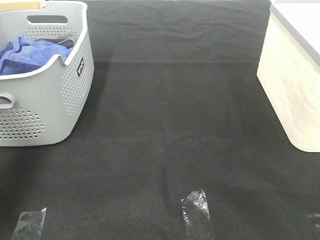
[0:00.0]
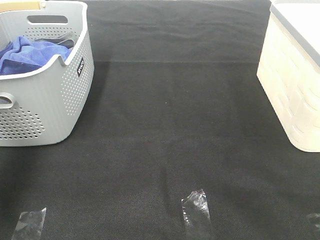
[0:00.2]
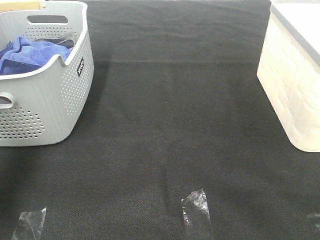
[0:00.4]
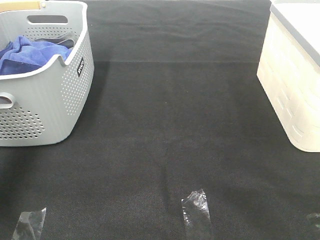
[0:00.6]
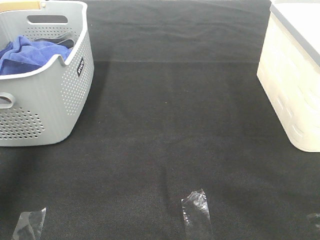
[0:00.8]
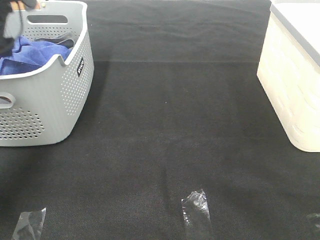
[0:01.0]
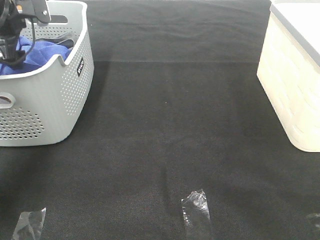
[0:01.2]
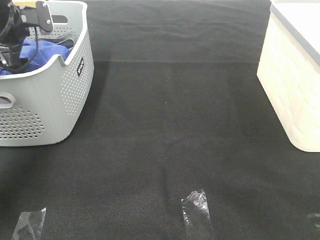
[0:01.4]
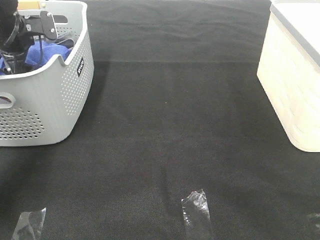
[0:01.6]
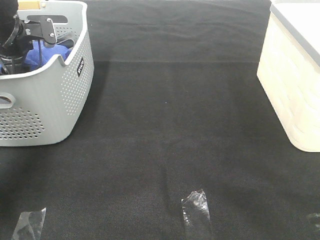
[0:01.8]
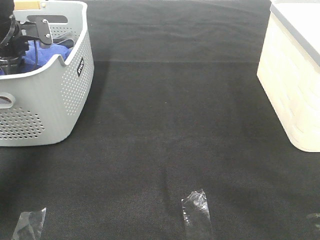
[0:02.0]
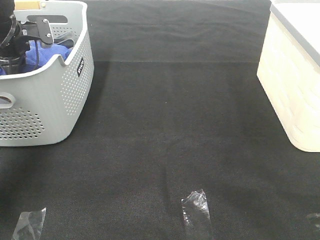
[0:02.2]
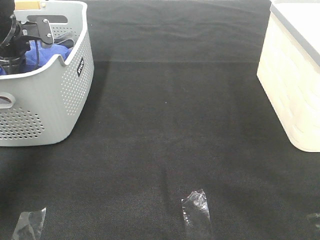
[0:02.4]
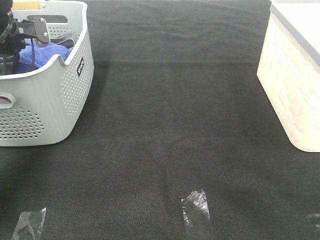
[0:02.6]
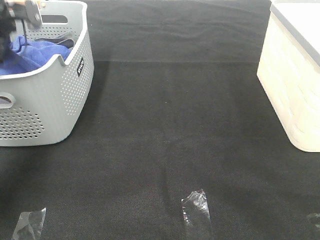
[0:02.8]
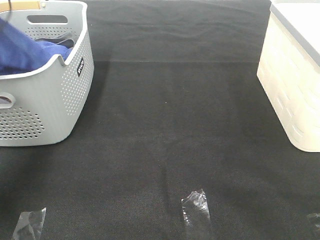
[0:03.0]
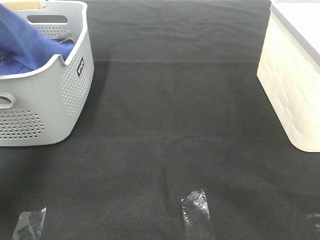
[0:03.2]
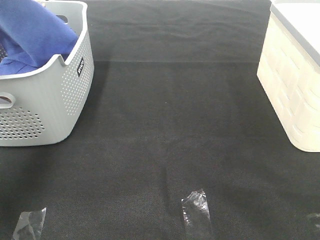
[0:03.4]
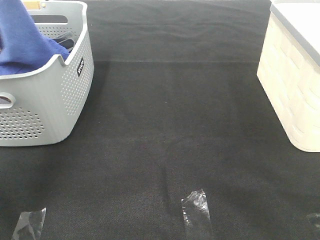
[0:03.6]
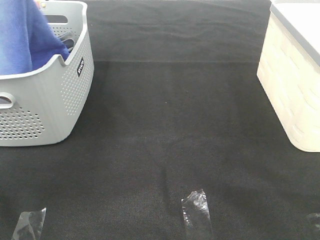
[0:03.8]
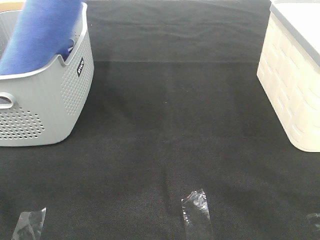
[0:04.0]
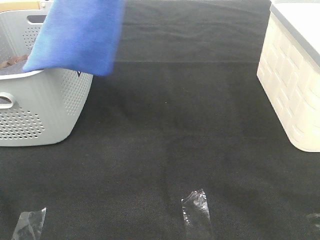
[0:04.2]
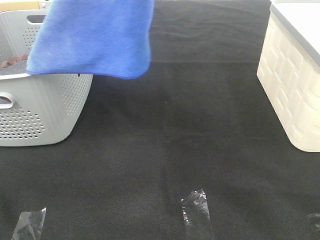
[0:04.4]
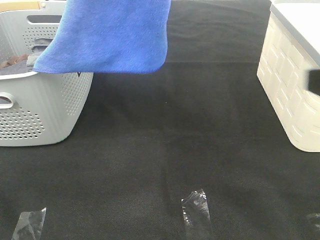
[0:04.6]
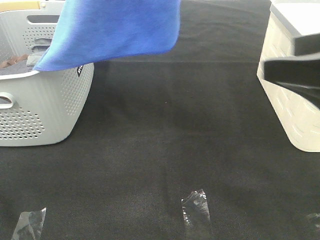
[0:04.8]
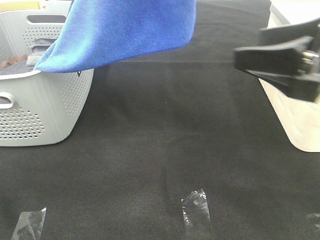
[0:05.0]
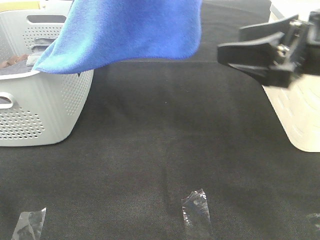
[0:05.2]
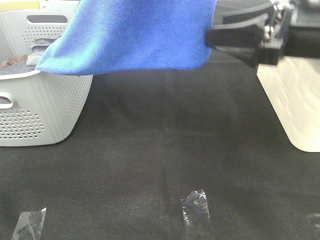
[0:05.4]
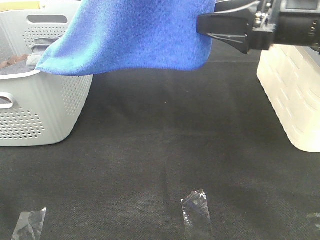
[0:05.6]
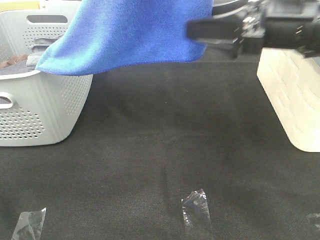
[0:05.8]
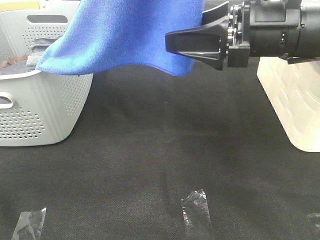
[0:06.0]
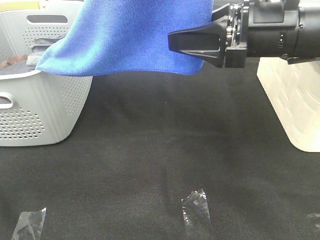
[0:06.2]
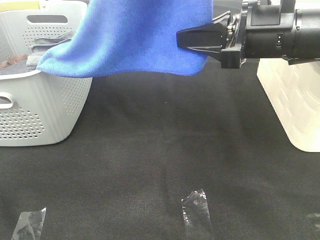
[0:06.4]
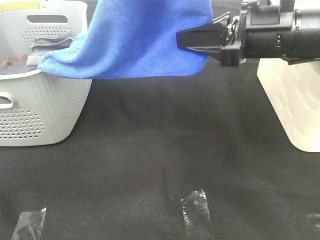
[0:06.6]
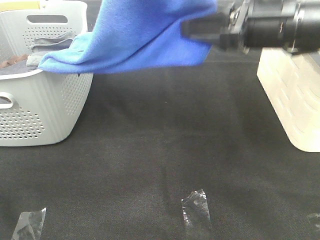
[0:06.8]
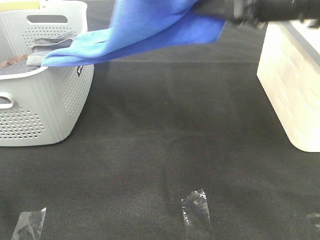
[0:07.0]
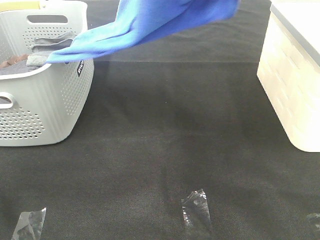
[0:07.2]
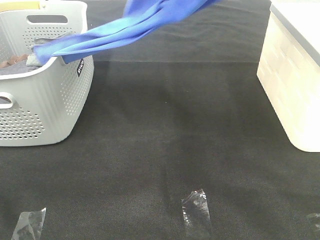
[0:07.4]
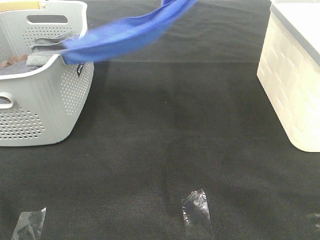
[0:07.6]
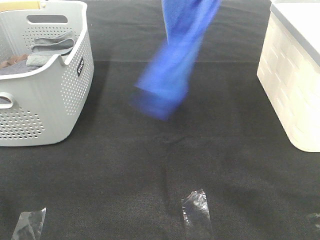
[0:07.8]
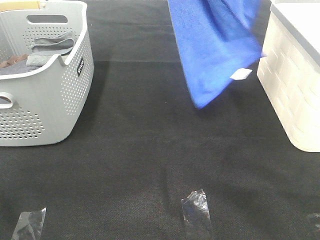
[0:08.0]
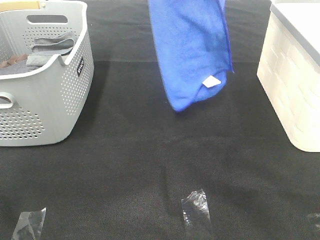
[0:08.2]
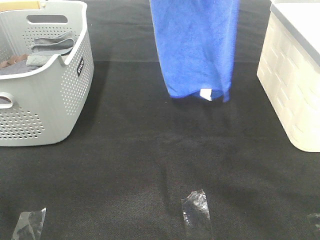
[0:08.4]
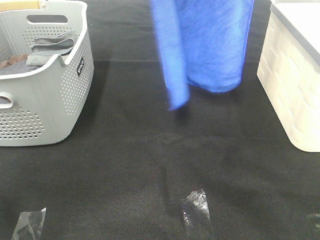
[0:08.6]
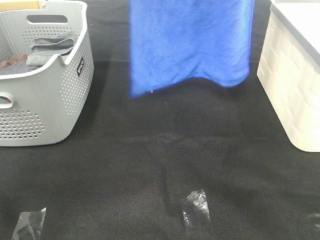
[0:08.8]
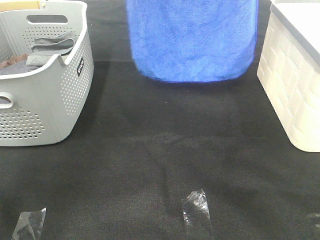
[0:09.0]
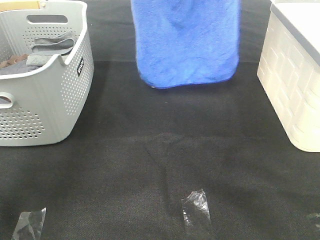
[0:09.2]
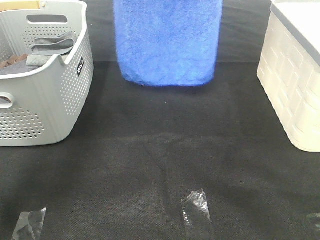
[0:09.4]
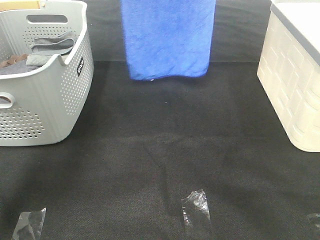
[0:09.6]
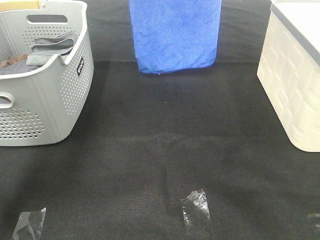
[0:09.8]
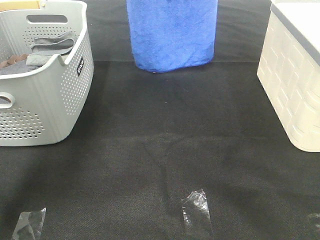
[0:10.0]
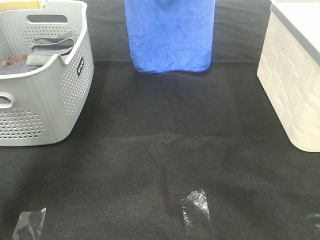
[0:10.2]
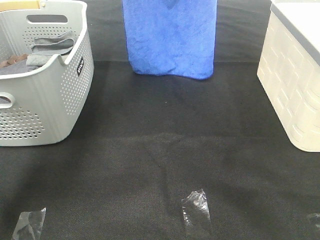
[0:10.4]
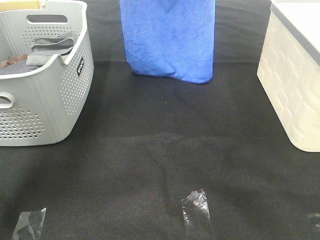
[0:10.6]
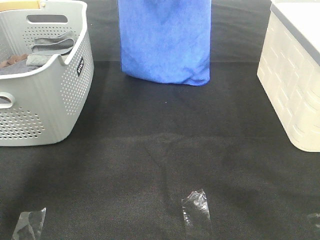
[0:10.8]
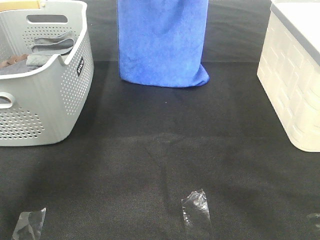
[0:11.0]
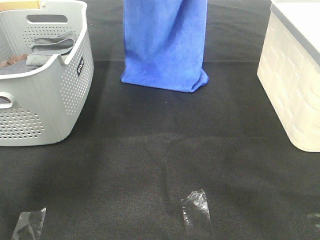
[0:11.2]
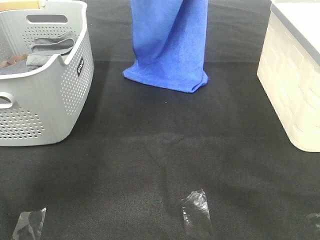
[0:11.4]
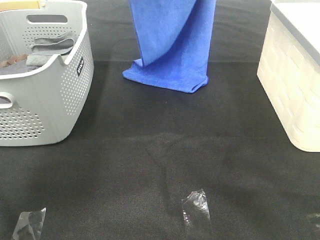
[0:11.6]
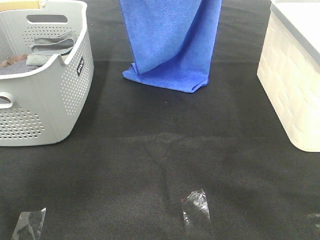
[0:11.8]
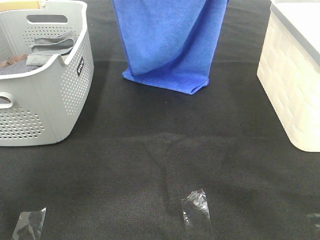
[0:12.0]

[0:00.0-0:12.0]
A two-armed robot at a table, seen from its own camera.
Task of the whole recording: Remove the towel and place it.
Step, 3.8 to 6.2 s: Right hand: grab a corner of the blue towel and straighten it.
0.0 to 1.6 s: The left gripper heads downward and forward, covering approximately 30 cm.
1.6 to 3.0 s: The left gripper moves upward, about 15 cm, and closes.
3.0 to 4.4 s: The right gripper moves forward, roughly 5 cm; the left gripper shifts some 35 cm to the right, backward and upward.
4.4 to 6.0 s: The right gripper goes about 25 cm forward and to the left.
6.0 to 7.6 s: The left gripper moves forward, roughly 5 cm; the right gripper moves upward, about 20 cm, and closes up.
7.6 to 9.0 s: The right gripper shifts approximately 10 cm forward. The left gripper moves forward and to the left, about 15 cm.
9.0 to 10.4 s: The right gripper heads forward, covering approximately 10 cm, while the left gripper heads forward and downward, covering about 10 cm.
10.4 to 12.0 s: Both grippers travel together backward, approximately 10 cm.

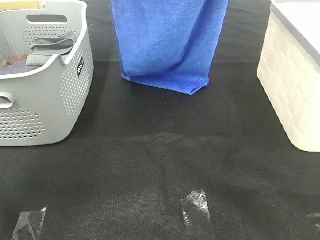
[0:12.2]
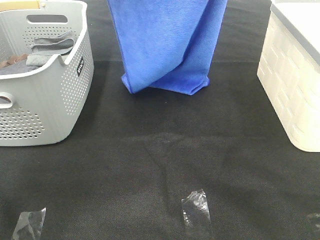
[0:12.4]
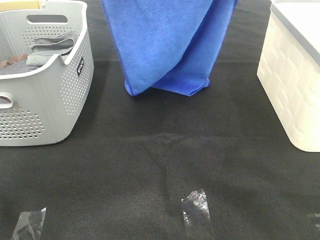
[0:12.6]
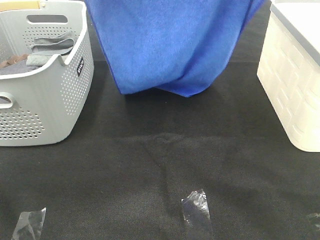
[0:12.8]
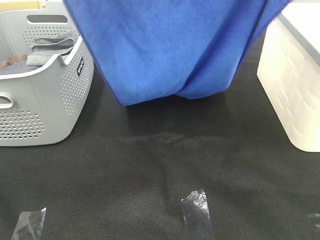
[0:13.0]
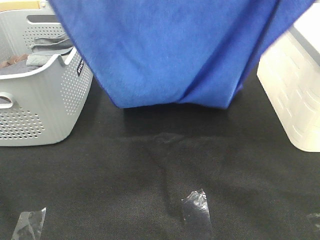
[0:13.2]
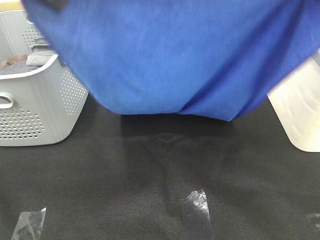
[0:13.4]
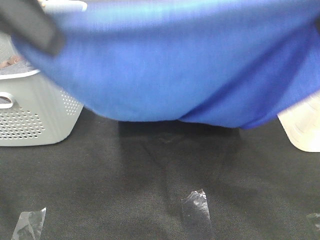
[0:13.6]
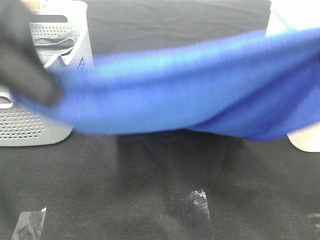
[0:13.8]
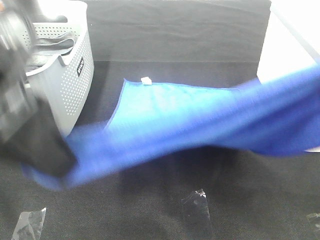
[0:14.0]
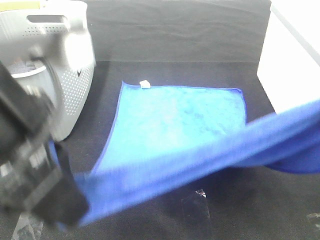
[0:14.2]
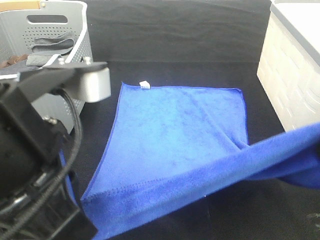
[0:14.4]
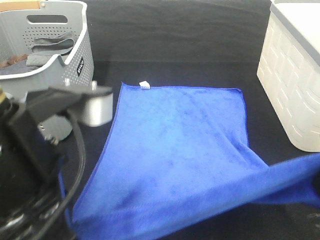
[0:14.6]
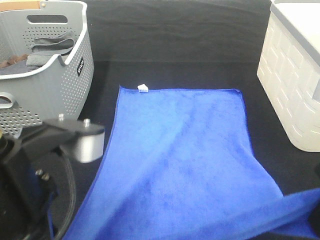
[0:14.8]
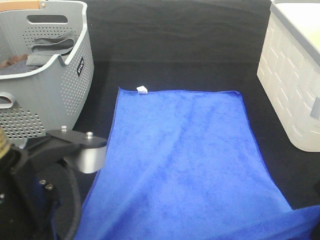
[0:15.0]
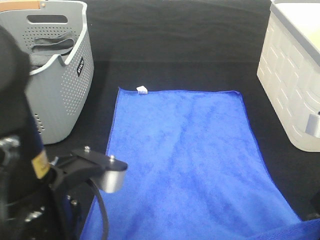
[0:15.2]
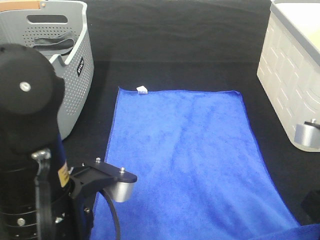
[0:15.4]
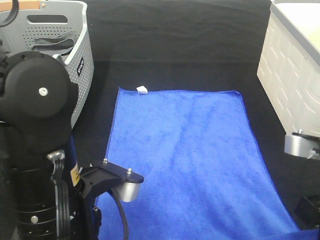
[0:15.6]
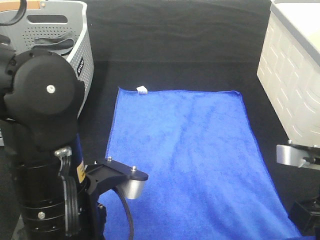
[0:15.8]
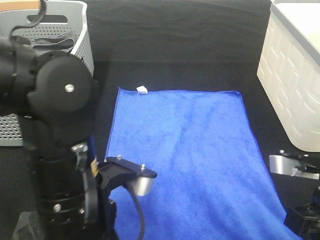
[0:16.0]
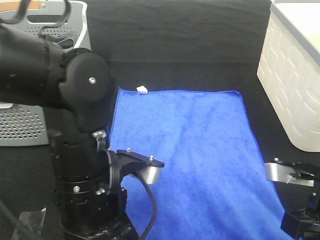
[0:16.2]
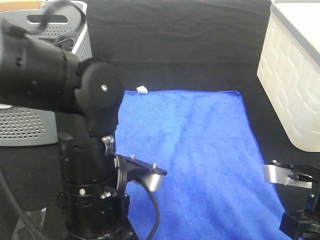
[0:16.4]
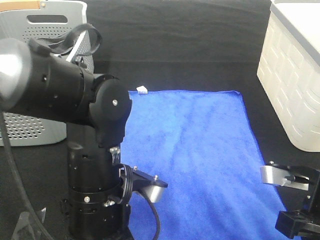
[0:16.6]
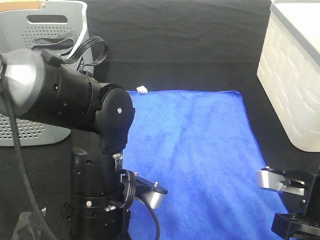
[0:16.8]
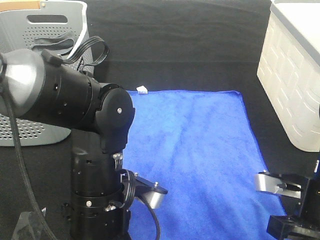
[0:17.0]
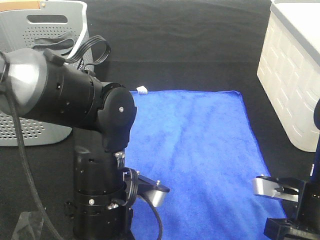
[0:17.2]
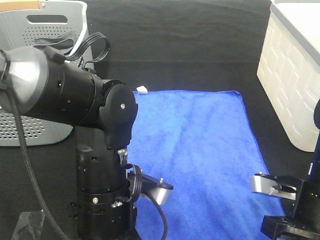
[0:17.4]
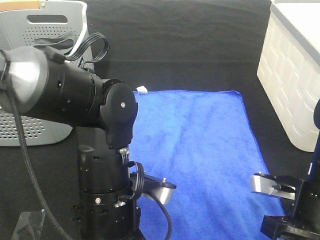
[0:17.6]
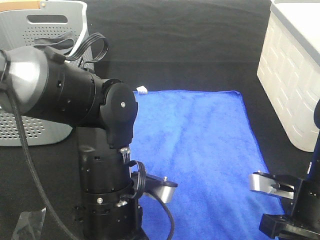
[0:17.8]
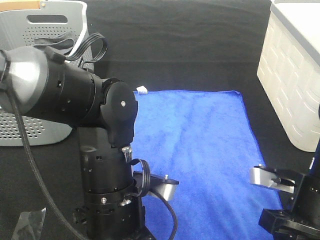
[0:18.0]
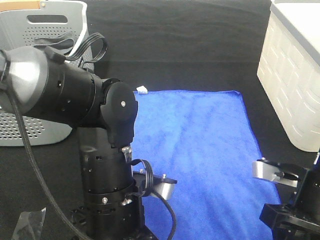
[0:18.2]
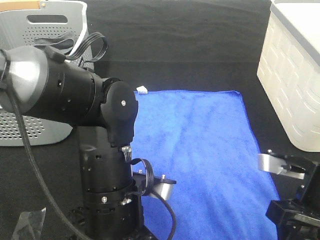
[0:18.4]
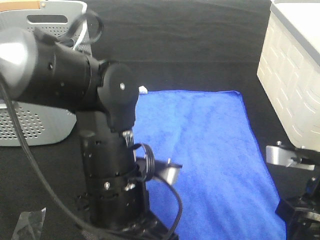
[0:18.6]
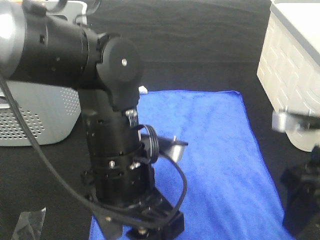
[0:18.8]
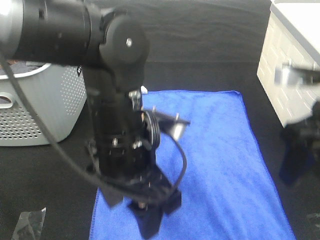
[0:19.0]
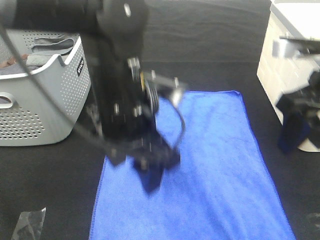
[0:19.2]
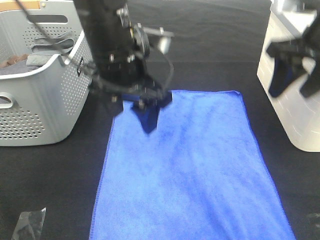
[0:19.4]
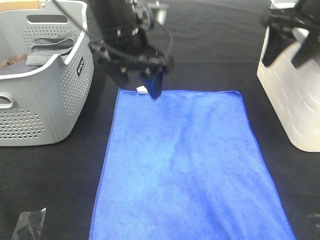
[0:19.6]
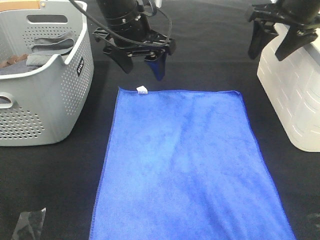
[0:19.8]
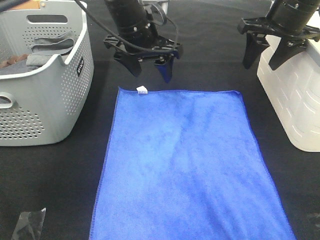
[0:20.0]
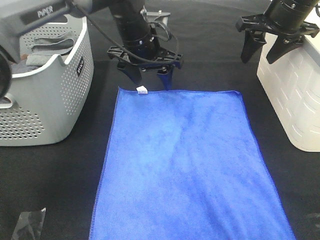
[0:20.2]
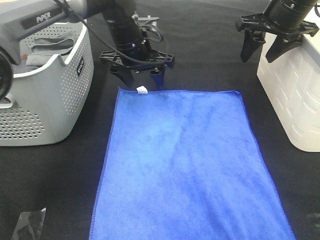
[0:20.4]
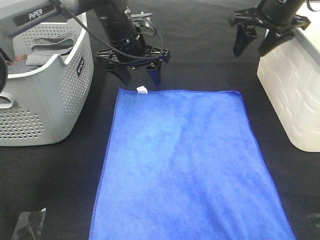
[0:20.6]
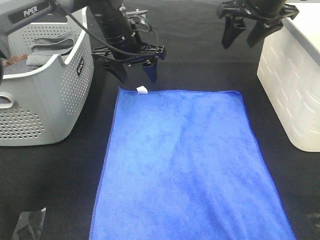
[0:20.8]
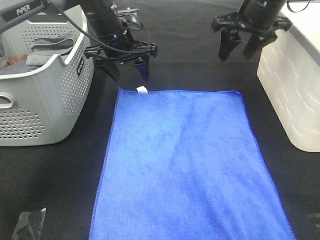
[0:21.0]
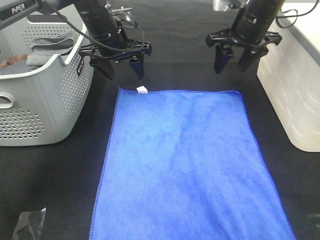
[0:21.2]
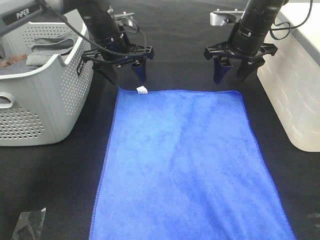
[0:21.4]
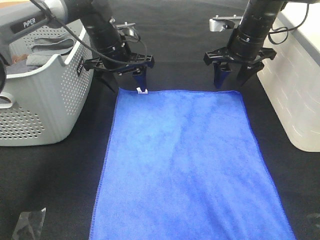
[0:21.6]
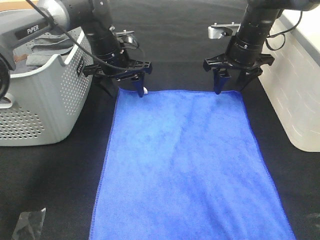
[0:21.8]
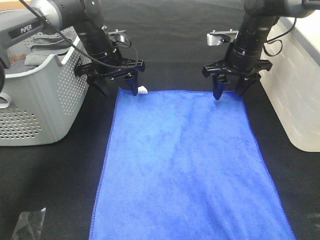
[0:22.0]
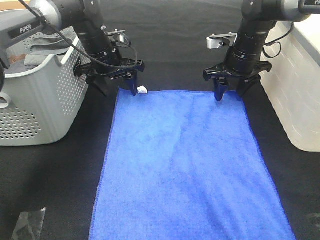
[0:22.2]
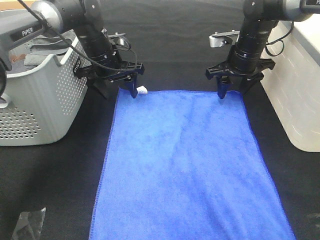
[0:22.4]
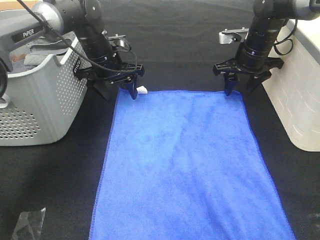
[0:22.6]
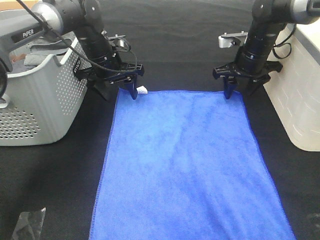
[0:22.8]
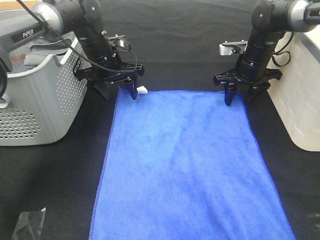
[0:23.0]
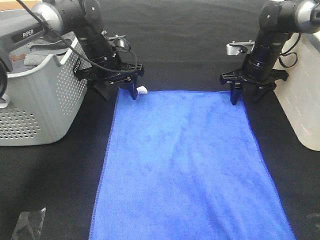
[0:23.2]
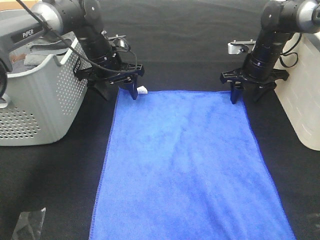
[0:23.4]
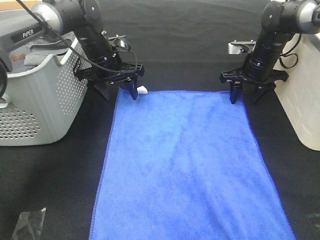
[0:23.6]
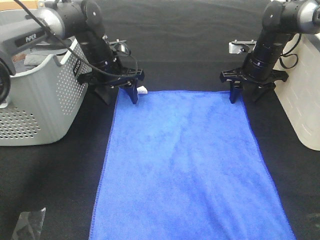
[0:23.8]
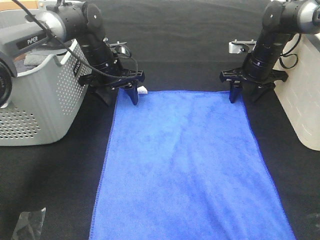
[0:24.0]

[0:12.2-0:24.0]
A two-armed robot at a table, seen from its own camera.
Task of the whole recording: Remove the towel and place it.
Step, 12.2 to 14.2 s: Left hand: spread the blue towel flat on the table.
Step, 12.2 to 14.2 s: Right hand: spread the blue towel flat on the table.
Step, 14.4 to 23.6 s: Left hand:adjust the blue towel.
Step, 14.4 to 23.6 s: Right hand:adjust the blue towel.
12.2 to 13.6 s: The grippers both shift backward by some 20 cm.
13.6 to 15.2 s: Both grippers travel together downward, approximately 15 cm.
15.2 to 16.6 s: The two grippers go about 10 cm downward.
16.6 to 18.2 s: The right gripper opens. Meanwhile the left gripper opens.
18.2 to 19.6 s: The grippers both shift forward and upward by some 25 cm.
19.6 to 21.0 s: The right gripper is displaced forward and to the left by about 10 cm. The left gripper shifts some 15 cm forward and downward.
21.0 to 22.6 s: The right gripper moves downward, about 10 cm. The left gripper moves downward, about 5 cm.
22.6 to 24.0 s: The grippers stay close to where they were, moving slightly.
